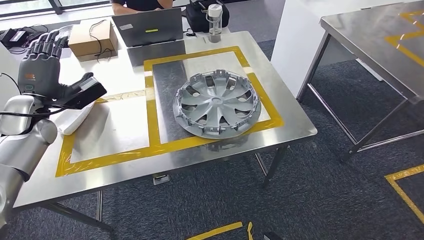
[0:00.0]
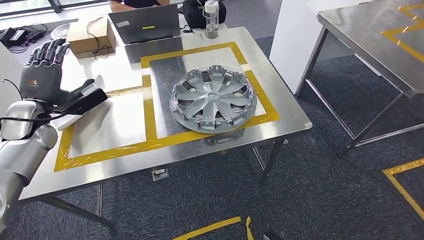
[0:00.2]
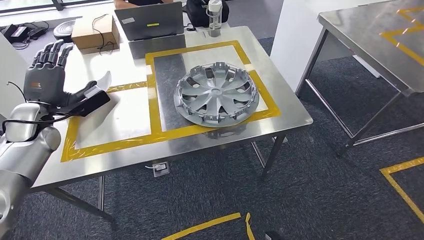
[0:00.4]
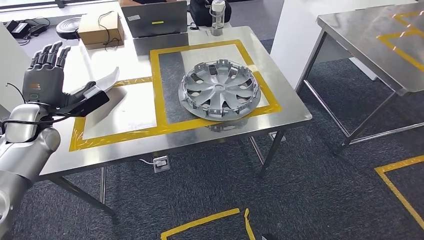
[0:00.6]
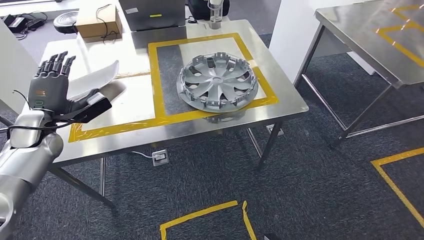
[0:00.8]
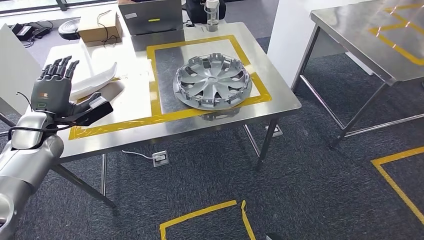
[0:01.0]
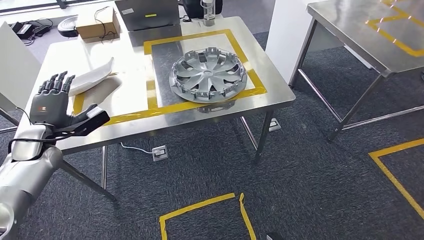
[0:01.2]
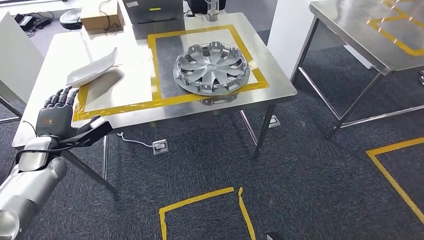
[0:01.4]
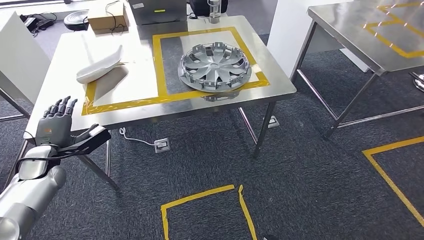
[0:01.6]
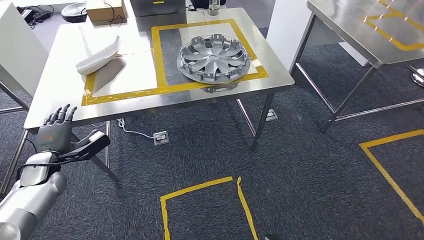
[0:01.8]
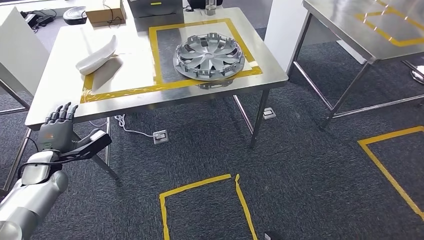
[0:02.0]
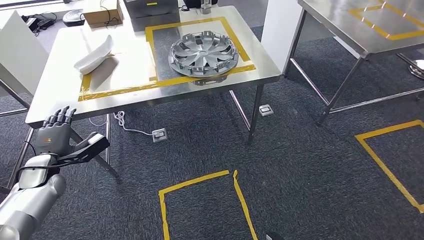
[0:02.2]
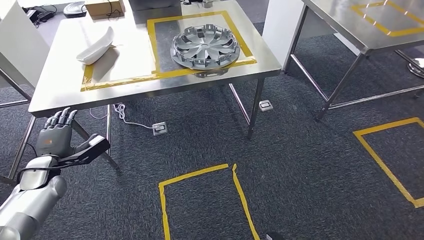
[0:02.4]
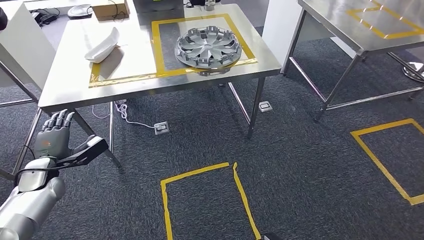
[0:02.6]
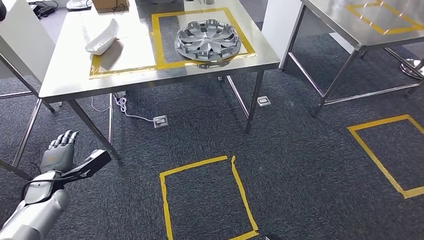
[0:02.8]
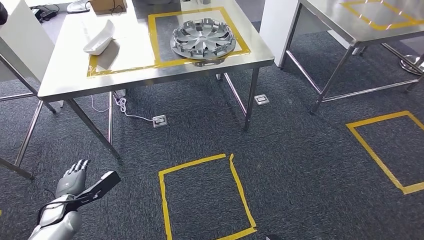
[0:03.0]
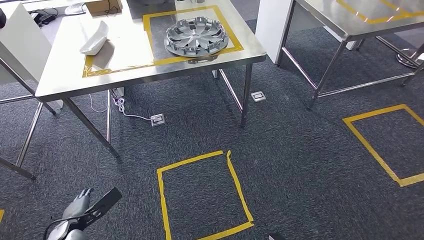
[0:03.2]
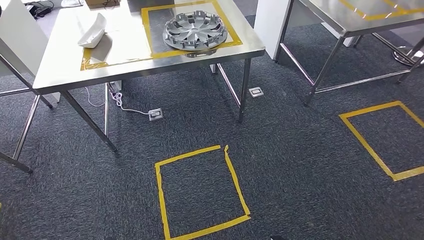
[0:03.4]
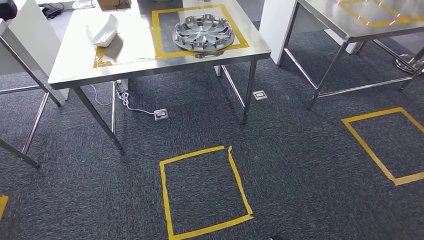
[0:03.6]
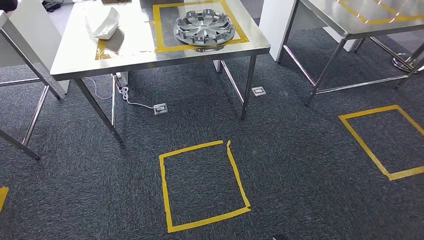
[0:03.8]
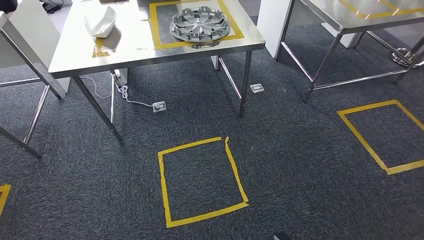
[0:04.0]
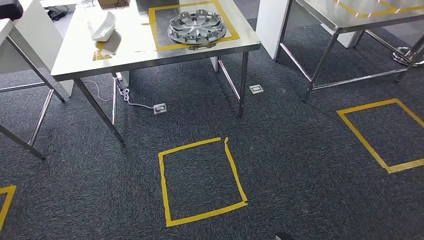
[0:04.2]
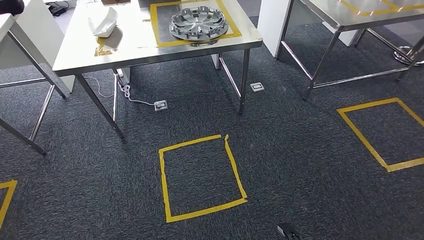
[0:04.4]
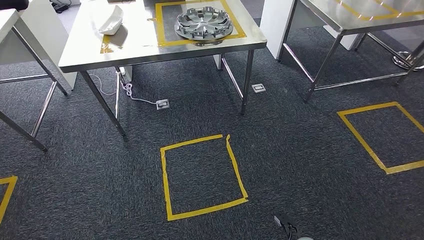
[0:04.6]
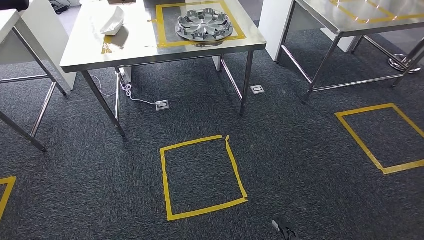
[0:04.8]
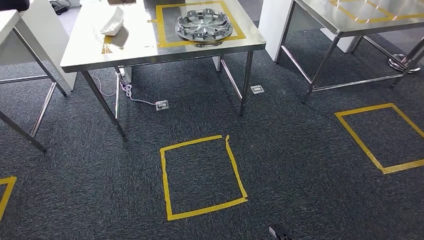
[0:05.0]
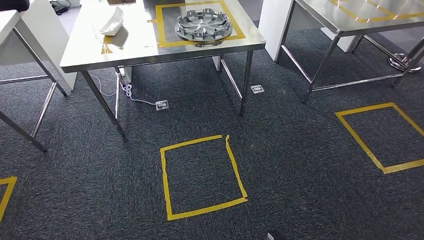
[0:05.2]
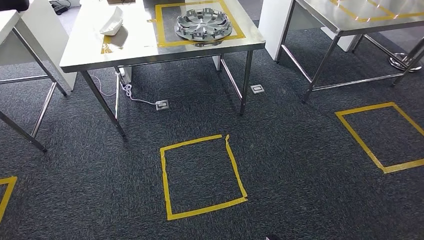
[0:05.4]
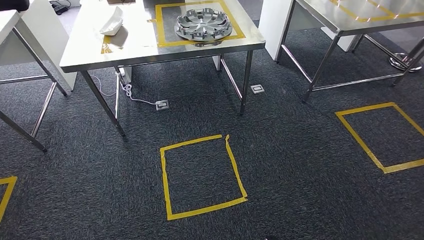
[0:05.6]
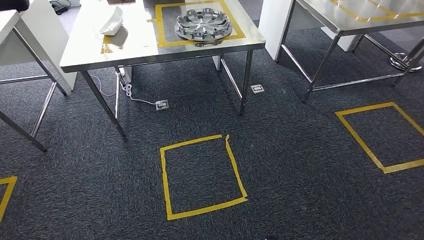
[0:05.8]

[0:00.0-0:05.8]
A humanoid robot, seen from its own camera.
Step, 0:01.8 to 0:05.8: Move to the initial position at the workbench.
0:04.4 to 0:05.8: The right hand moves backward, about 5 cm.
